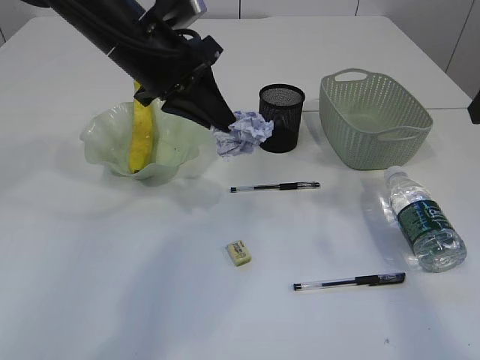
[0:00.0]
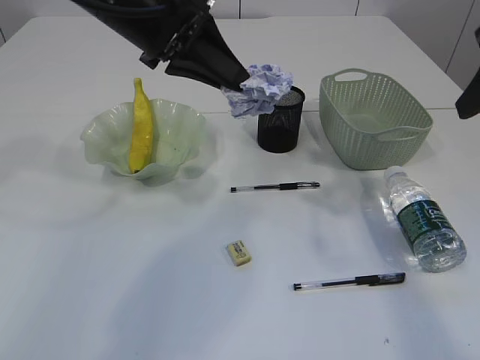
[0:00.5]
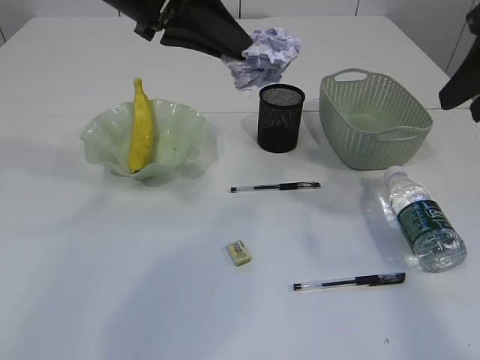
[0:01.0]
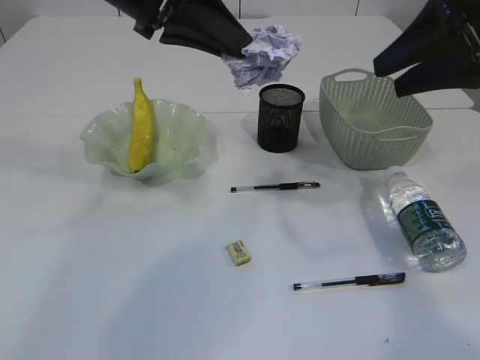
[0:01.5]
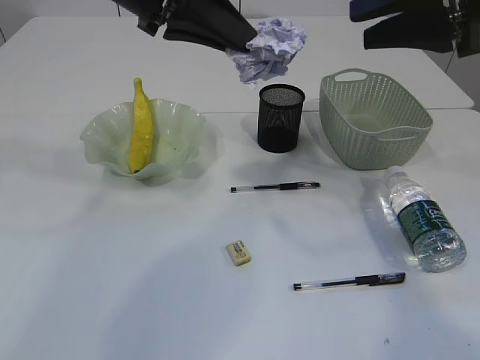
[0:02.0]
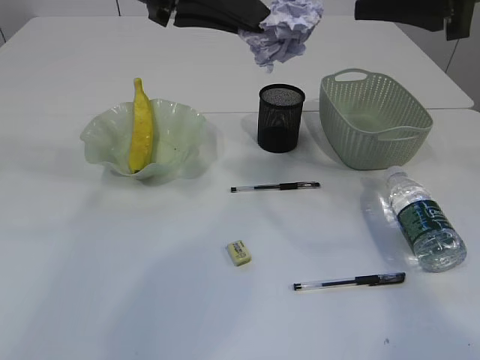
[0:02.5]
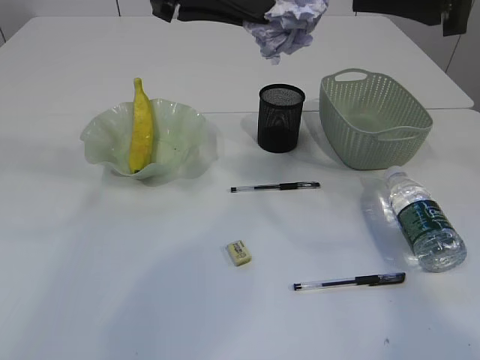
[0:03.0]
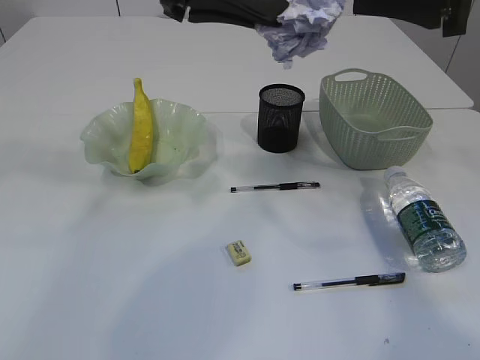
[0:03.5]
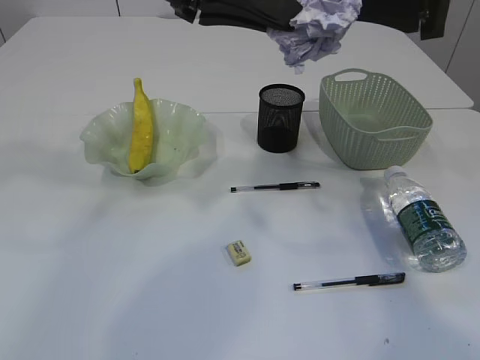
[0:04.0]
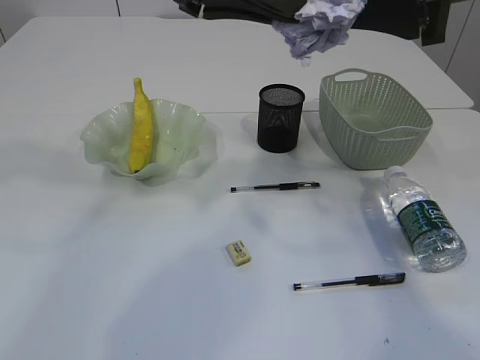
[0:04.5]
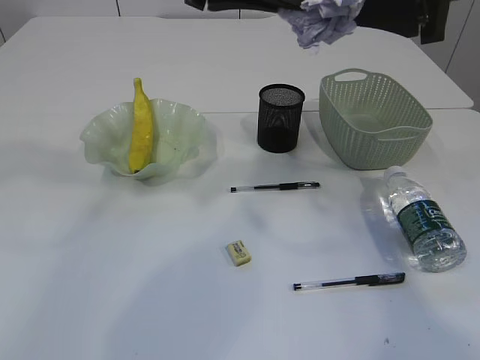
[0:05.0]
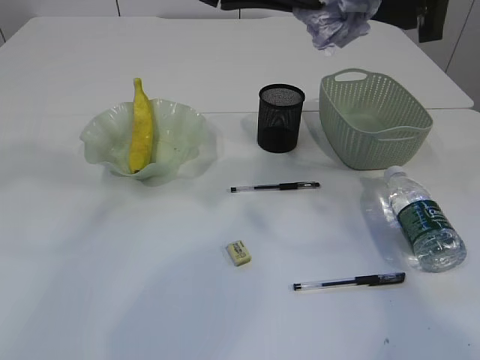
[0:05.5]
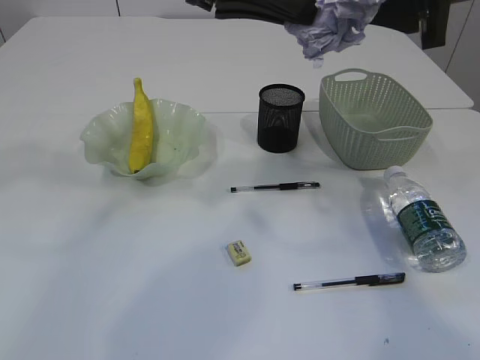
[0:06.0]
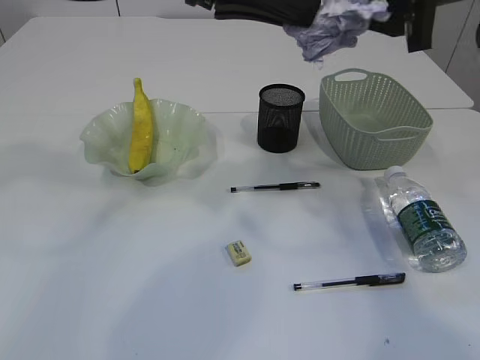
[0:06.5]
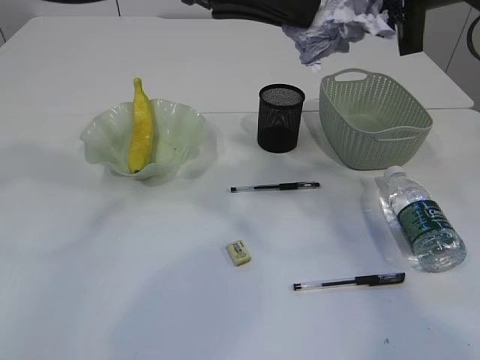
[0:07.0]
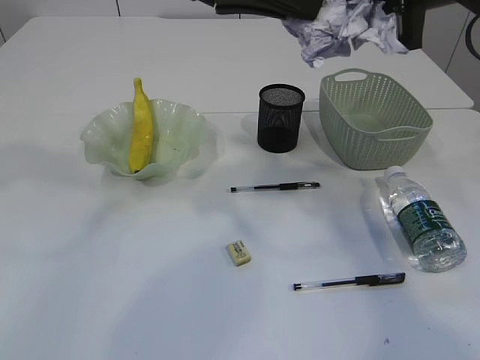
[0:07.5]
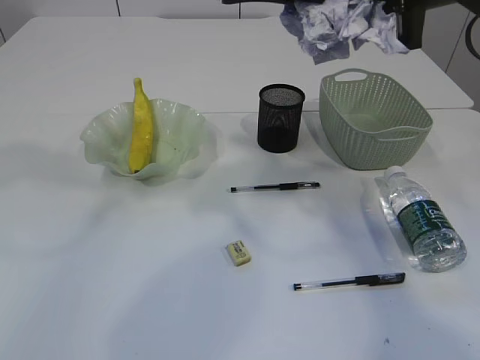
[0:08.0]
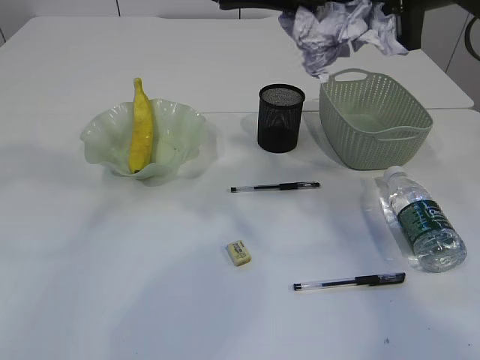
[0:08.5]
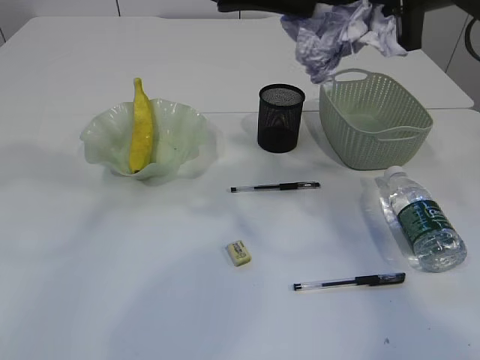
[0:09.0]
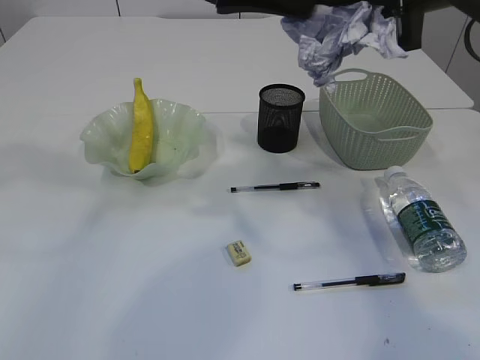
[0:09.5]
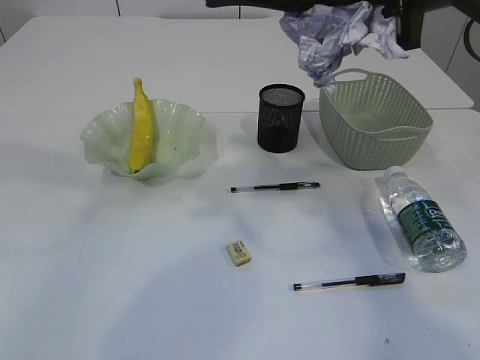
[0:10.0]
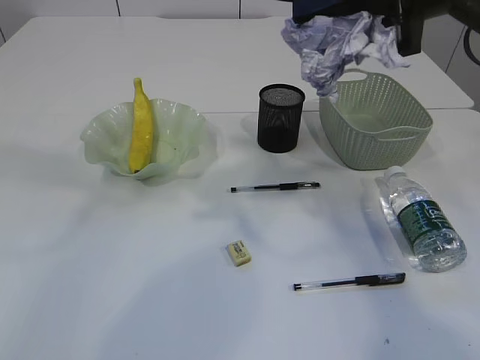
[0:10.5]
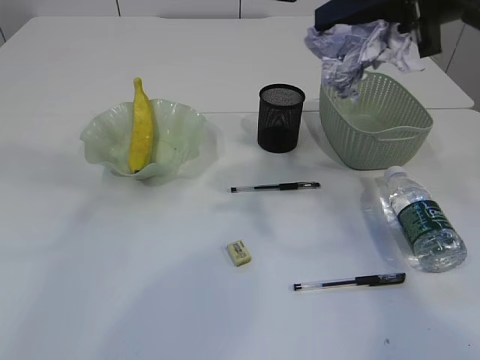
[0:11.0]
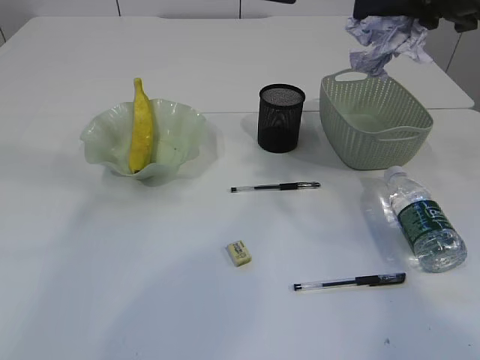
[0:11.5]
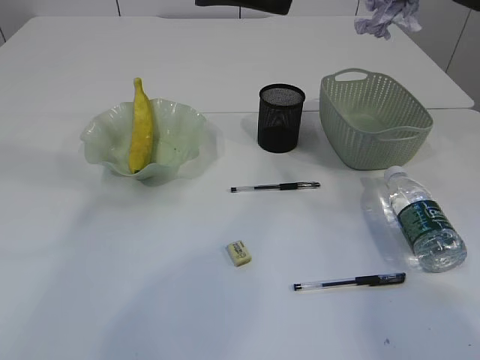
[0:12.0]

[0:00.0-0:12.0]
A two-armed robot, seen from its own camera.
Step, 0:00.0 to 0:11.5: Hand over the waste paper.
0:00.0 to 0:02.0: The left gripper moves upward, about 10 cm; the right gripper moves to the left, approximately 5 cm.
0:02.0 to 0:06.0: The grippers move only a little.
0:06.0 to 0:08.0: The right gripper closes.
0:08.0 to 0:10.0: The left gripper opens.
0:10.0 to 0:12.0: The right gripper moves forward and to the right, some 10 cm.

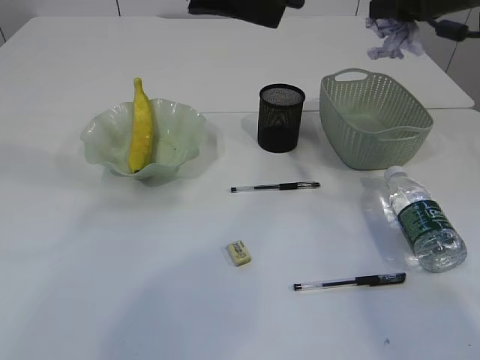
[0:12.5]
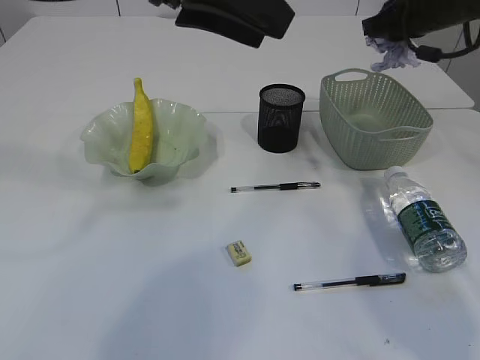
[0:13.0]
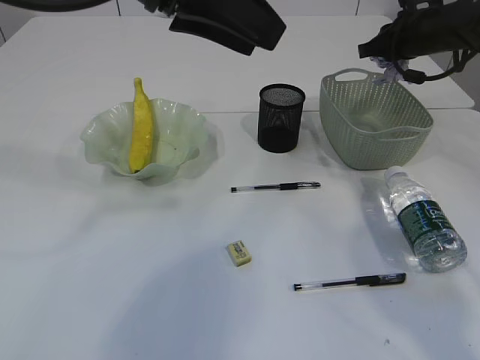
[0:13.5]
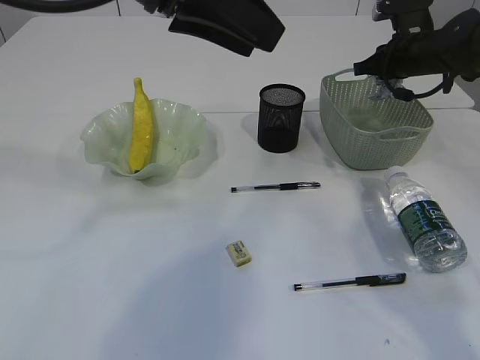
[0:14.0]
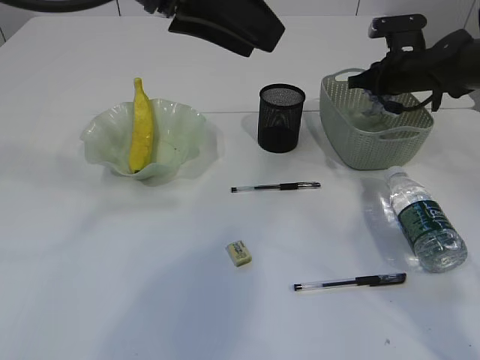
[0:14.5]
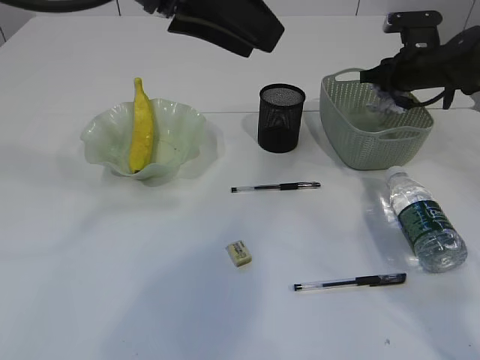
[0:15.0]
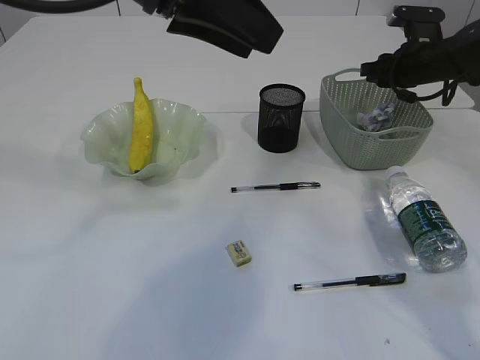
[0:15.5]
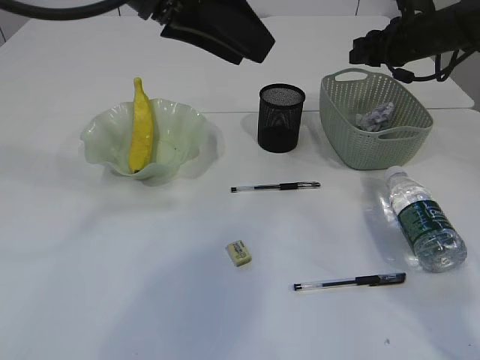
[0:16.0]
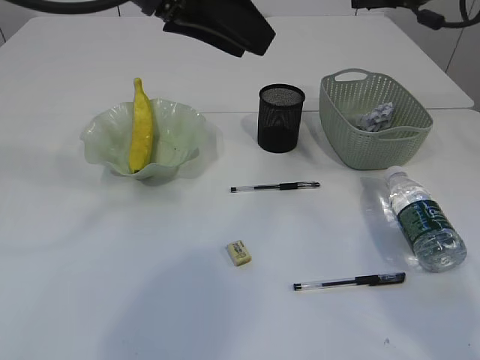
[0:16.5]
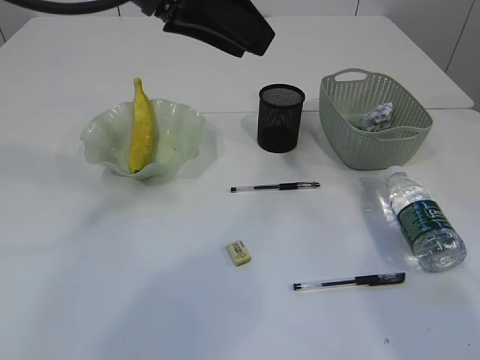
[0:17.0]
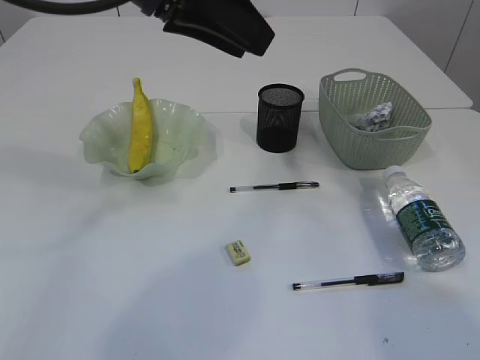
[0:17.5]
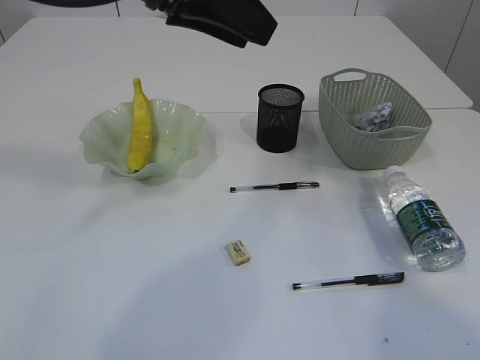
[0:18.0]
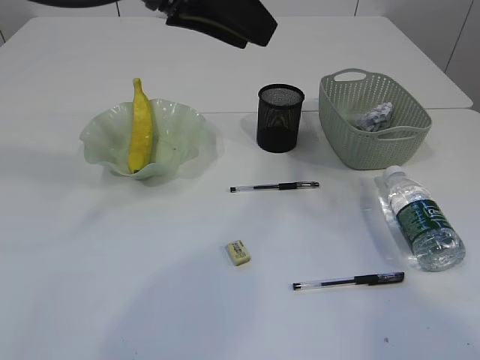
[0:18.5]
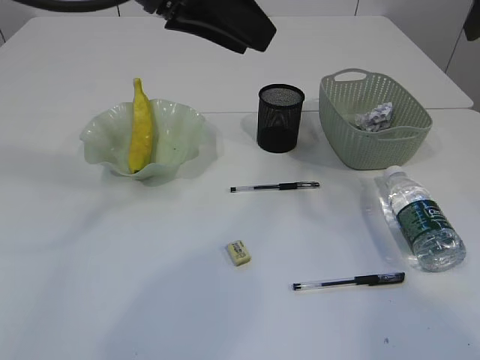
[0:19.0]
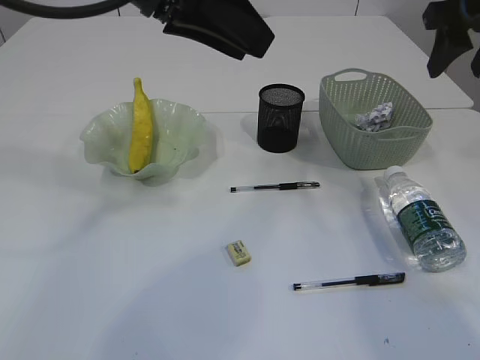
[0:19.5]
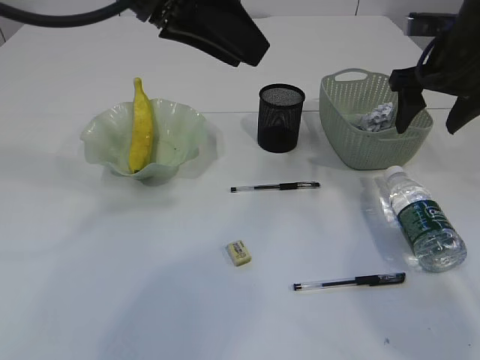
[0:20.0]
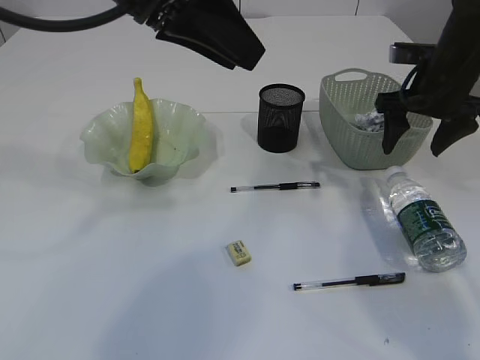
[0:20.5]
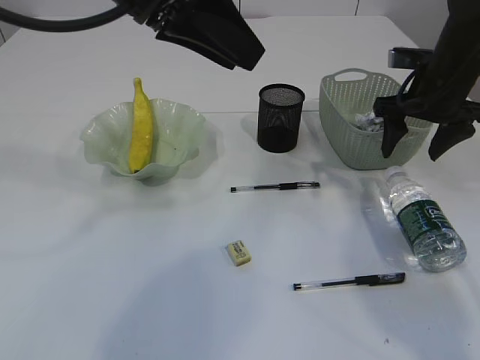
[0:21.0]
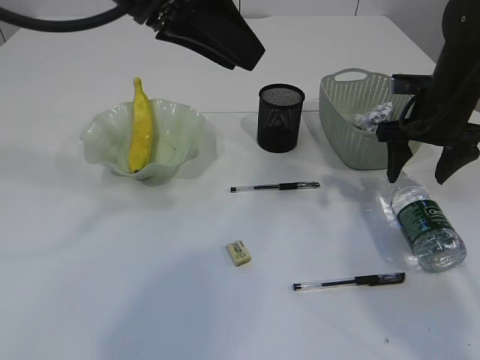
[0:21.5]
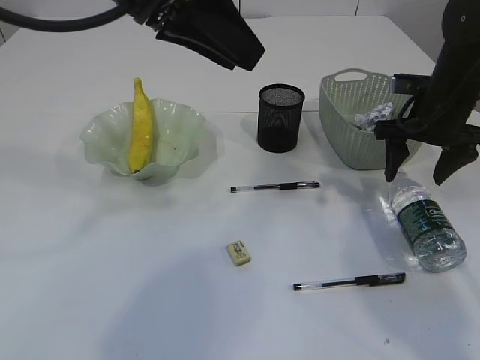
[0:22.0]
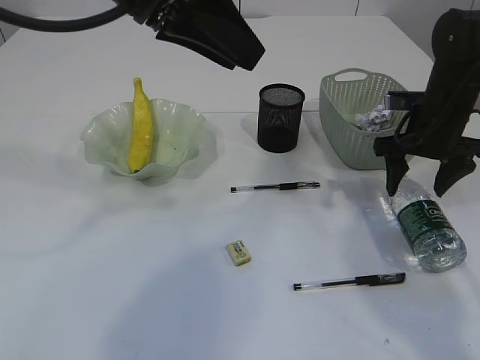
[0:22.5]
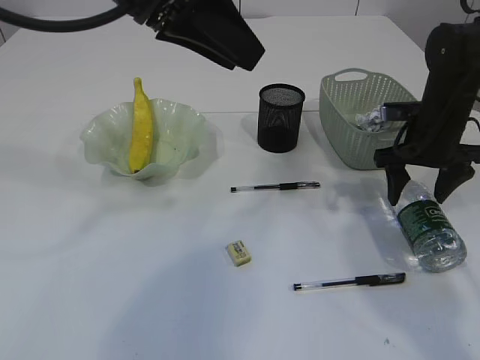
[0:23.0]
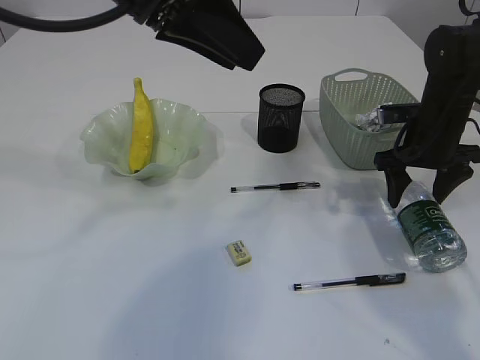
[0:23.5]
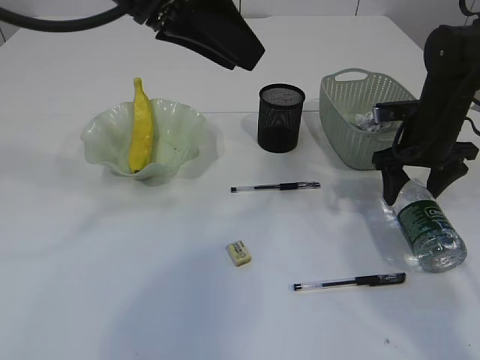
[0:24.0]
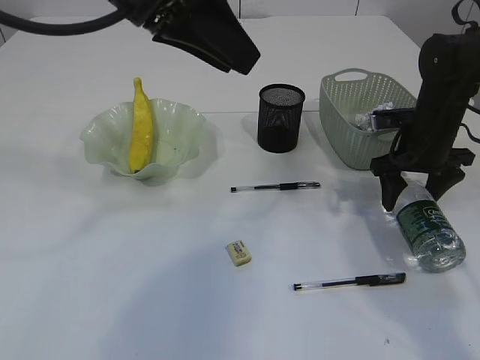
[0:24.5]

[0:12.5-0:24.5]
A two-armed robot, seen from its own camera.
Step, 0:12.5 to 0:16.0: Place the waste paper in the basket.
0:12.5 to 0:14.5: The right gripper goes some 20 cm downward and forward.
0:14.5 to 0:16.5: The right gripper travels upward by about 15 cm, and opens its fingers.
0:16.5 to 0:18.5: The right gripper is displaced backward and upward by approximately 20 cm.
0:18.5 to 0:20.5: The right gripper travels downward by some 20 cm, and opens its fingers.
0:20.5 to 0:22.5: The right gripper is displaced downward by about 5 cm.
0:22.5 to 0:24.5: There are only small adjustments of the grippers.

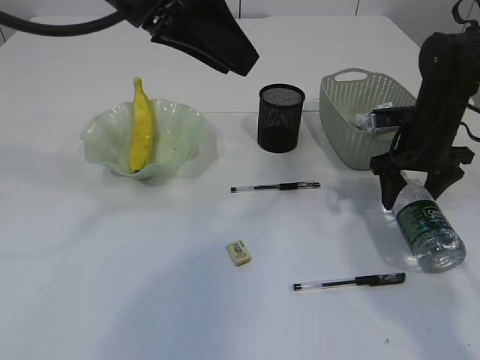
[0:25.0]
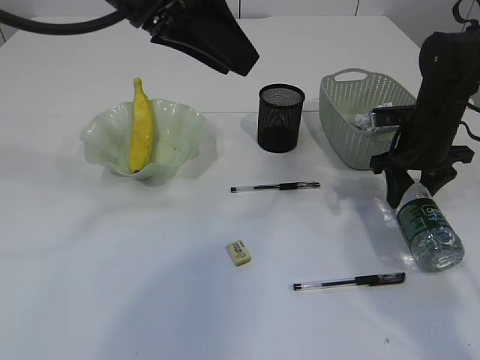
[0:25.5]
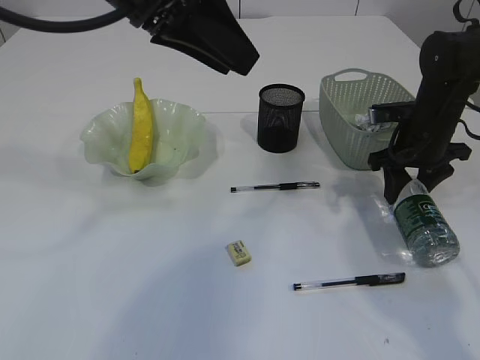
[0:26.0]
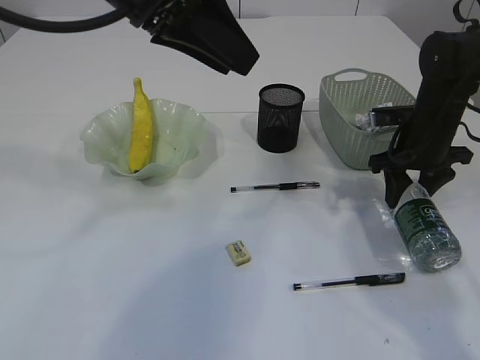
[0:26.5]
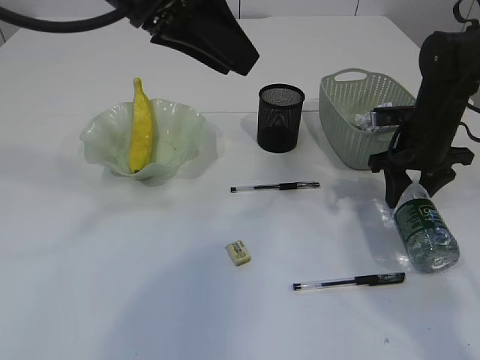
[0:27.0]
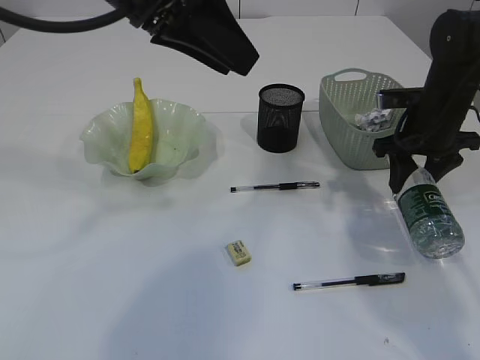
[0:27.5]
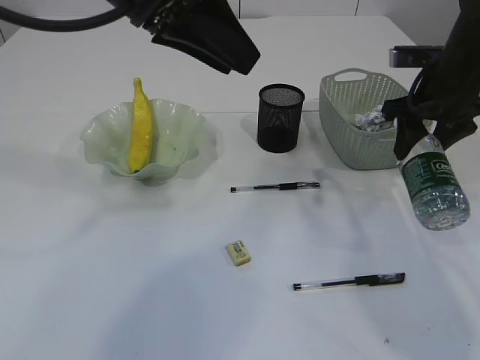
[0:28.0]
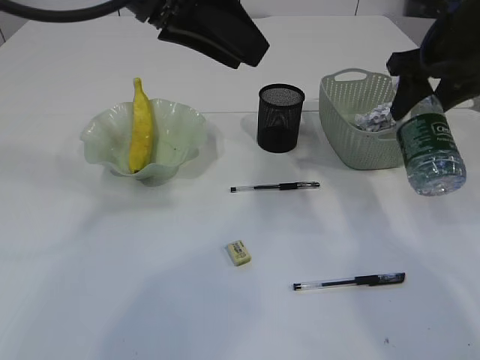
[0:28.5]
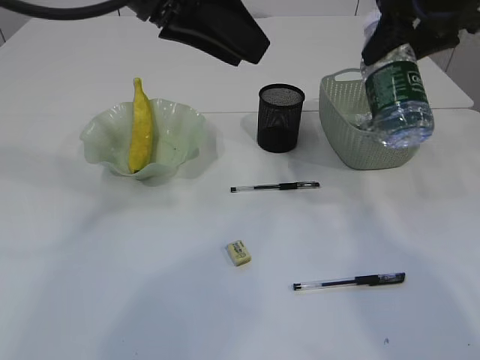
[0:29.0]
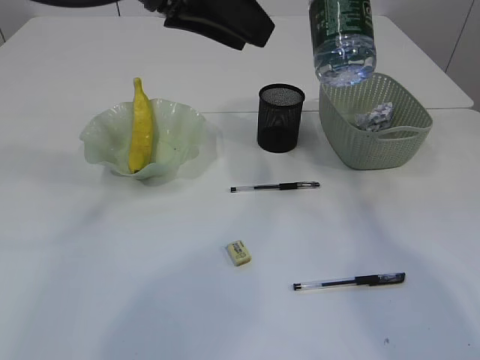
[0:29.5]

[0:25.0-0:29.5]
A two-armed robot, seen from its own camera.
Step, 0:25.0 to 0:28.0: Pick up the bottle with the right arm.
0:25.0 to 0:27.0: The right gripper closes up.
0:27.0 to 0:29.5: The right gripper goes some 25 cm upward.
